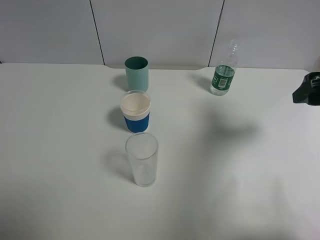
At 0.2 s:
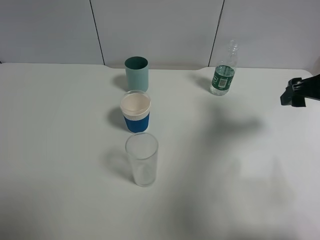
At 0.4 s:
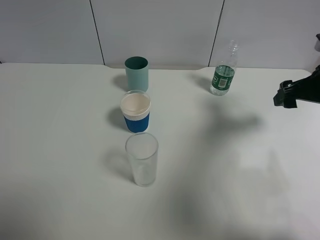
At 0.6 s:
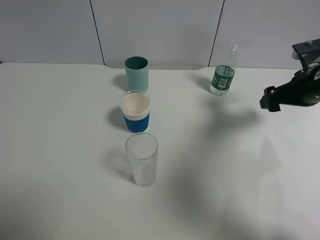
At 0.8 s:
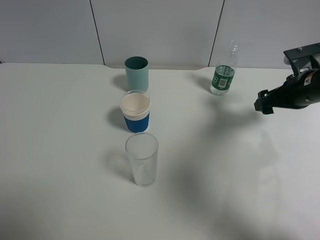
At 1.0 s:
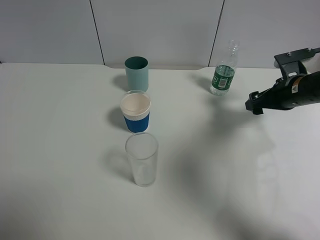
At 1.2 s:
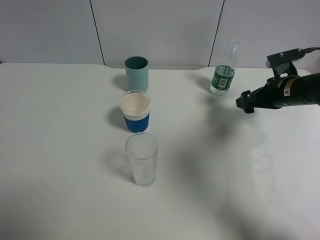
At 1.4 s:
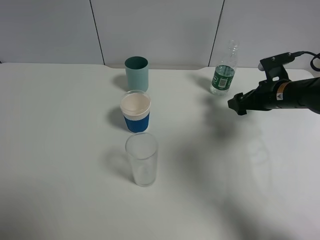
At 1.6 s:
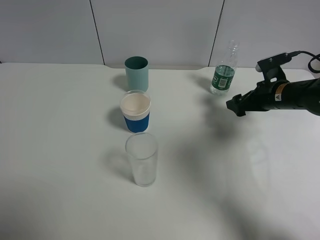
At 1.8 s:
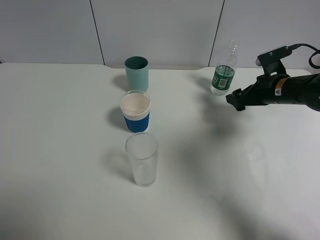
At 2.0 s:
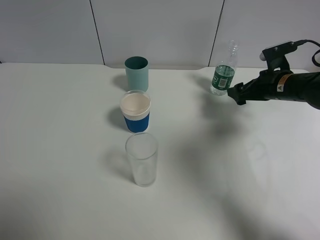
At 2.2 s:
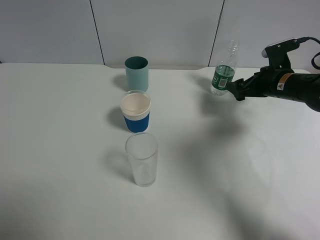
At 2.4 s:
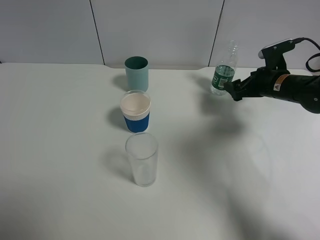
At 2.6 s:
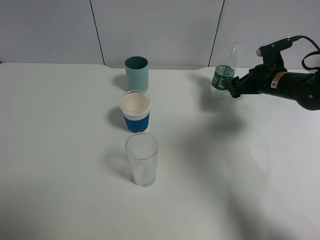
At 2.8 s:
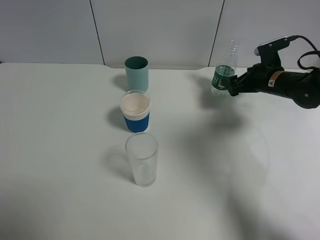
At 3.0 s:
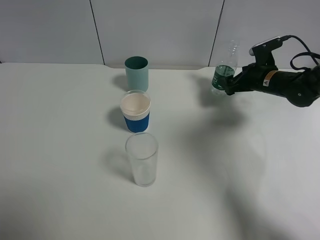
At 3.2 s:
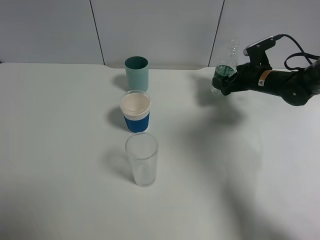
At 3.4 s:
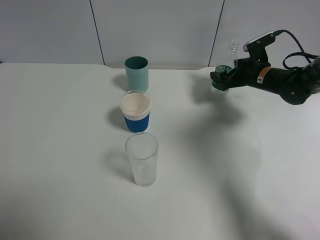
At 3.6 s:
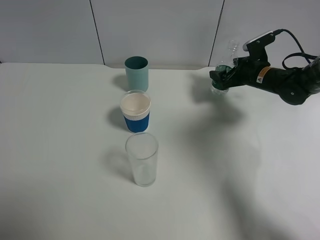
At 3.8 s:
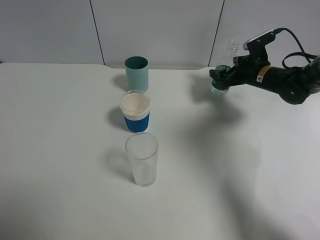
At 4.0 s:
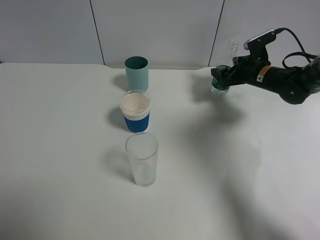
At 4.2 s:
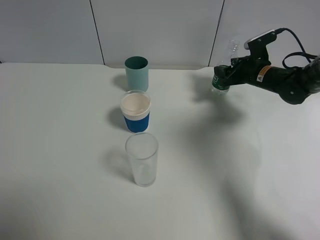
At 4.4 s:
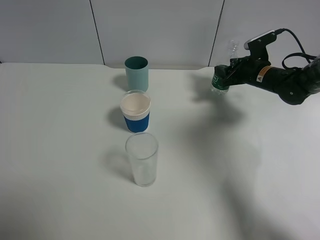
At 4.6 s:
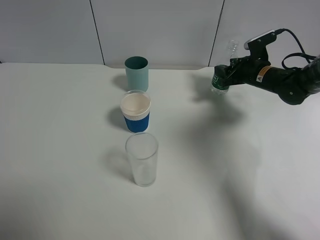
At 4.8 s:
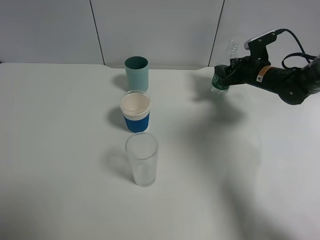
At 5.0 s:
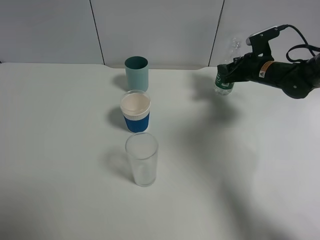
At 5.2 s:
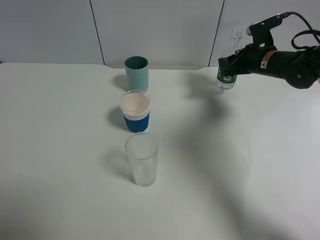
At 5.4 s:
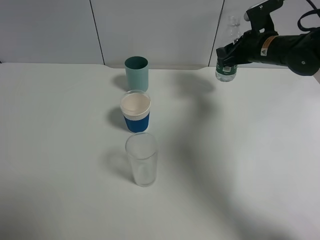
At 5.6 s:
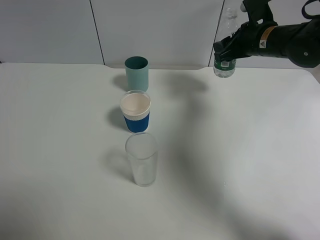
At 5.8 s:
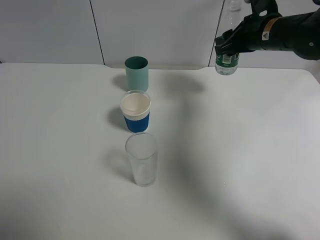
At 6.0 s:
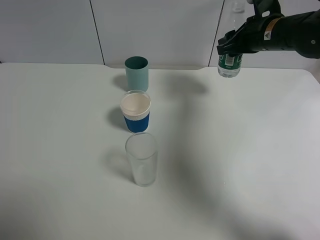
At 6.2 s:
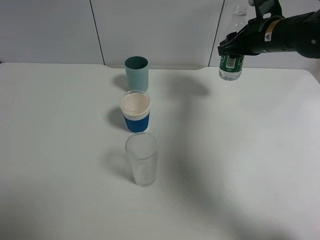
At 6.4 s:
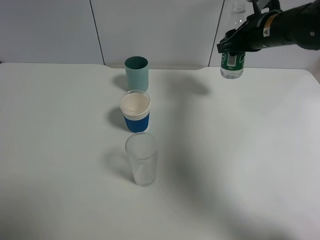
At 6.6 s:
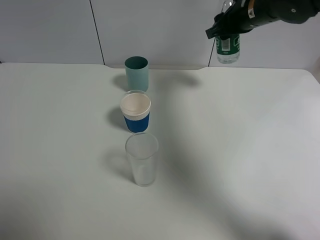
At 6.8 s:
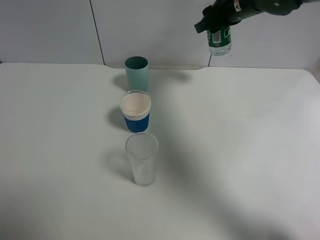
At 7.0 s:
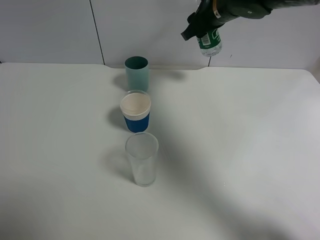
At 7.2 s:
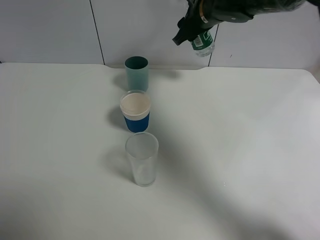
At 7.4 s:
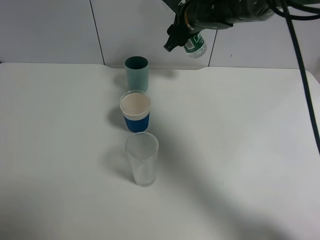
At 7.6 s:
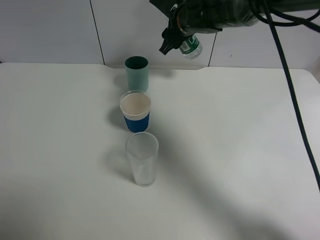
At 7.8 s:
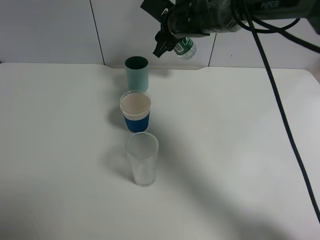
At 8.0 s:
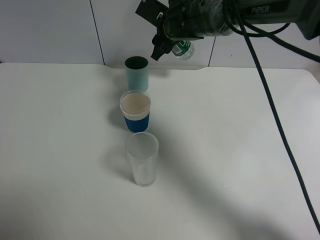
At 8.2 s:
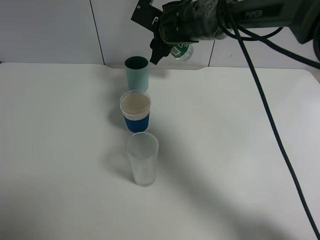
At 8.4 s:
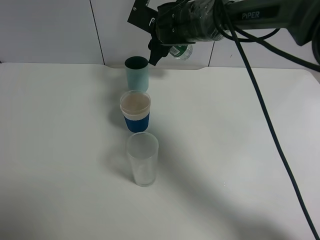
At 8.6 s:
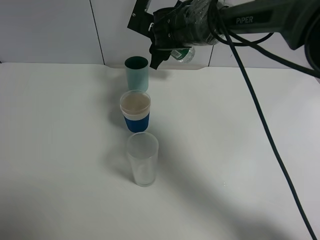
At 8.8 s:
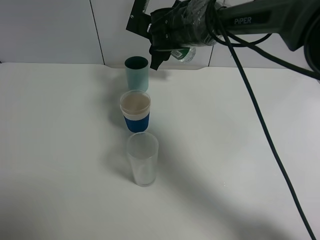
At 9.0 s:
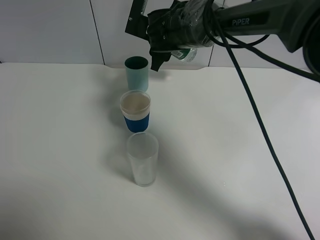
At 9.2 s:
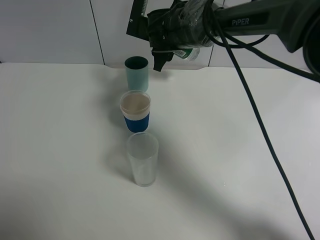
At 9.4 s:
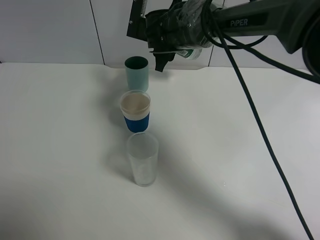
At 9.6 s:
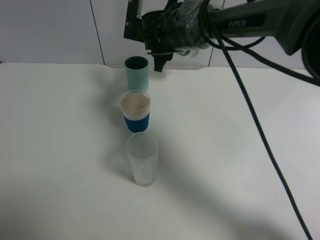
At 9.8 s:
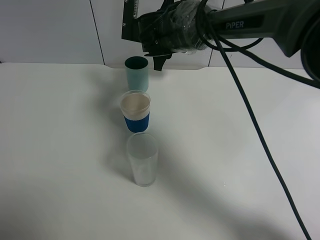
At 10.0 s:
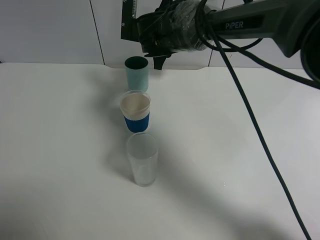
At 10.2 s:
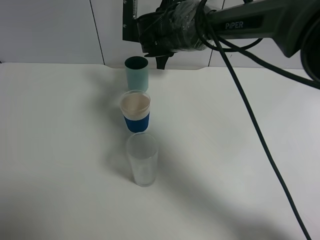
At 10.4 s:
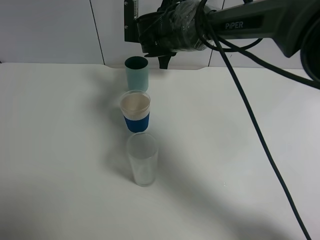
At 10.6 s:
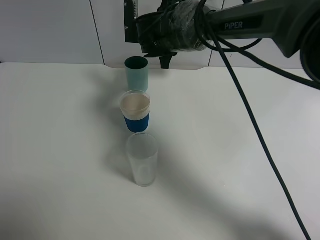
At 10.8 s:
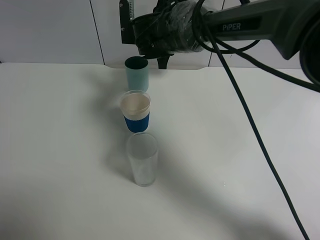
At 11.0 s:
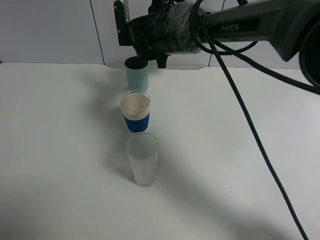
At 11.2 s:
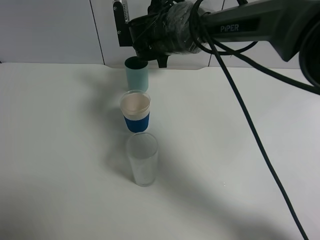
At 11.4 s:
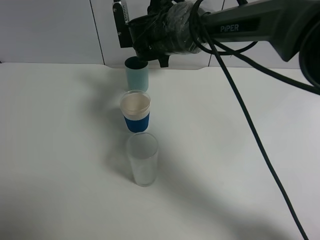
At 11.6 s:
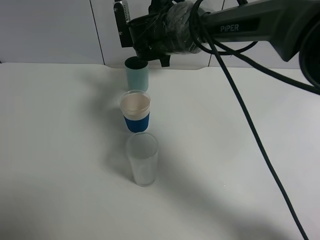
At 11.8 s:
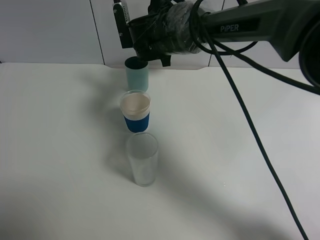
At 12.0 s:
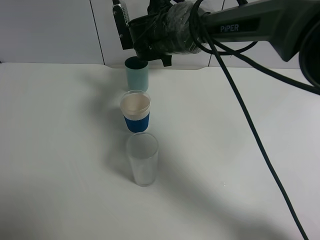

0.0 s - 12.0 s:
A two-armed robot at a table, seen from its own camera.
Task of the whole recording: use a gripper to hold the bottle of the drink and pour it into a random cup.
Step, 0.0 s - 4.4 s: Grasp the mineral water bottle with the right gripper.
0.0 s - 1.6 s: The right gripper travels downward and forward by approximately 20 cm.
1.6 s - 3.0 s: The right gripper goes some 5 cm forward.
3.0 s - 4.4 s: The right gripper closes up.
4.4 s - 6.0 s: The right gripper shifts approximately 10 cm upward.
6.0 s - 7.6 s: The right gripper travels to the left by about 15 cm.
7.6 s - 9.0 s: The right gripper changes place by some 5 cm.
9.0 s - 10.4 s: The grippers stay close to where they were, moving slightly.
10.4 s - 12.0 s: There are only small adjustments of the grippers.

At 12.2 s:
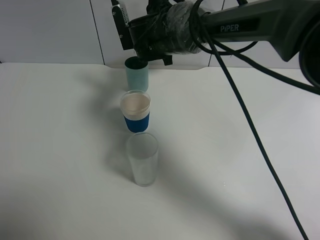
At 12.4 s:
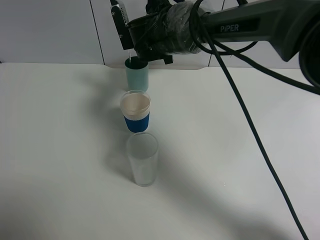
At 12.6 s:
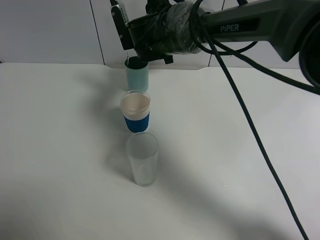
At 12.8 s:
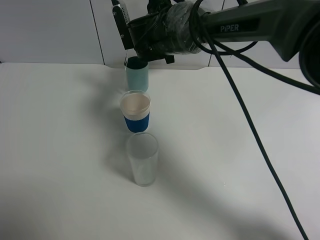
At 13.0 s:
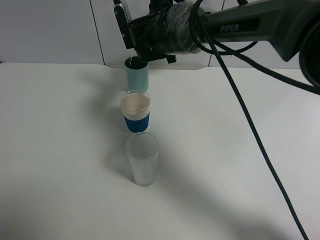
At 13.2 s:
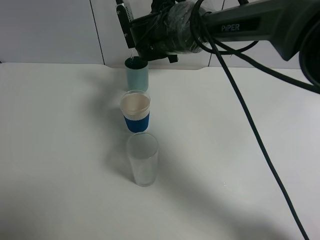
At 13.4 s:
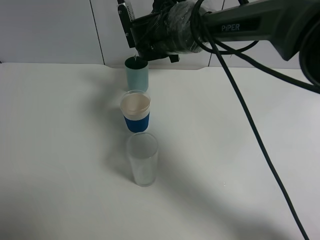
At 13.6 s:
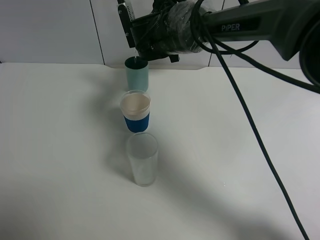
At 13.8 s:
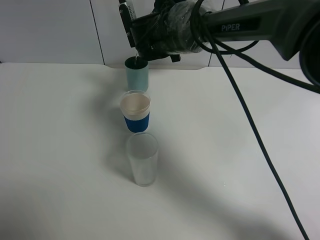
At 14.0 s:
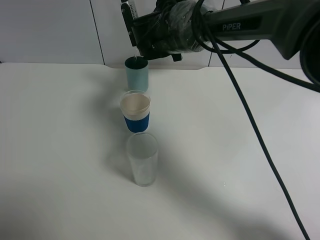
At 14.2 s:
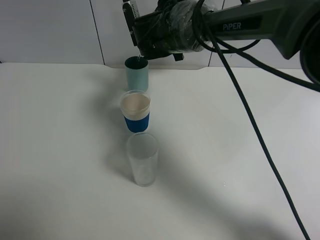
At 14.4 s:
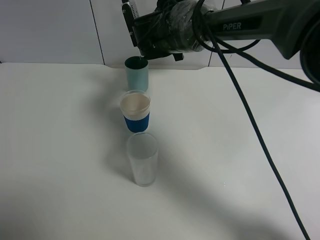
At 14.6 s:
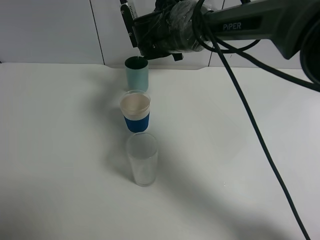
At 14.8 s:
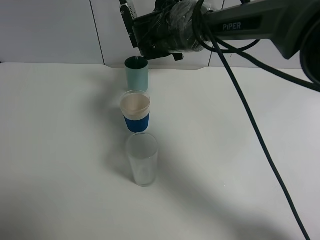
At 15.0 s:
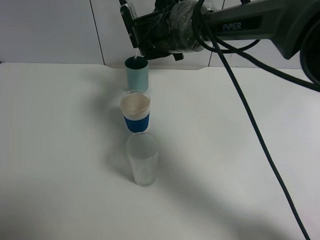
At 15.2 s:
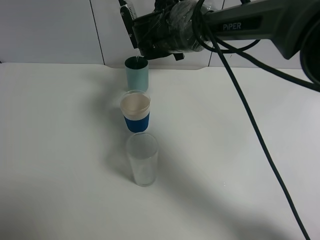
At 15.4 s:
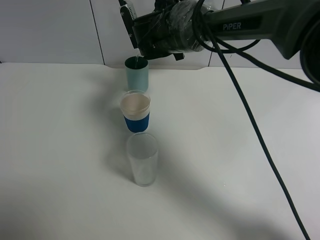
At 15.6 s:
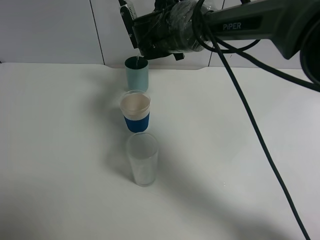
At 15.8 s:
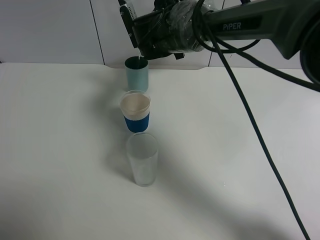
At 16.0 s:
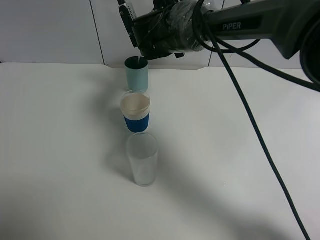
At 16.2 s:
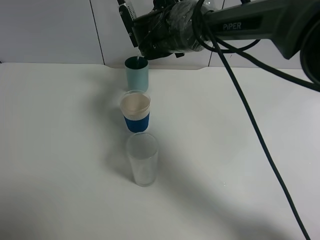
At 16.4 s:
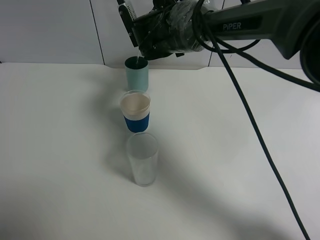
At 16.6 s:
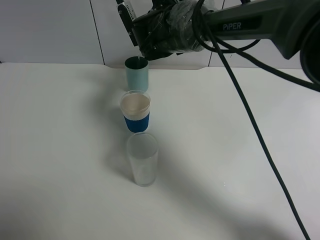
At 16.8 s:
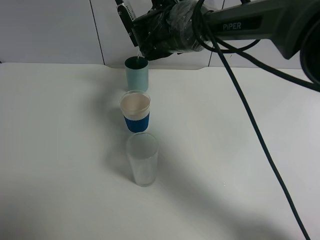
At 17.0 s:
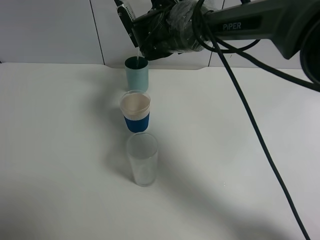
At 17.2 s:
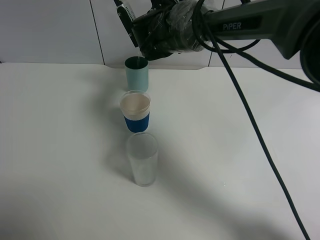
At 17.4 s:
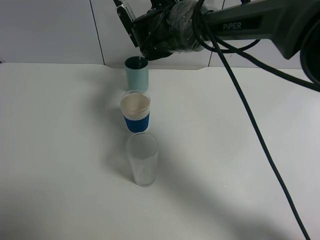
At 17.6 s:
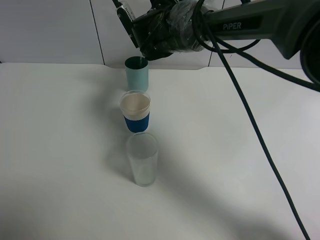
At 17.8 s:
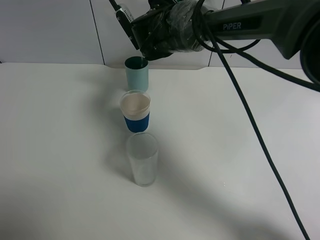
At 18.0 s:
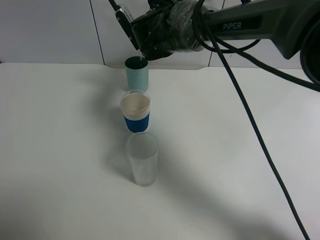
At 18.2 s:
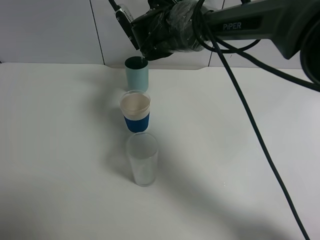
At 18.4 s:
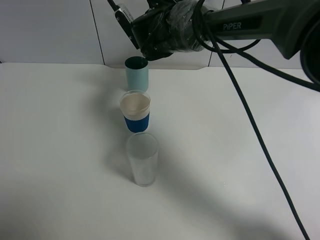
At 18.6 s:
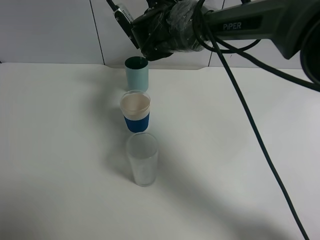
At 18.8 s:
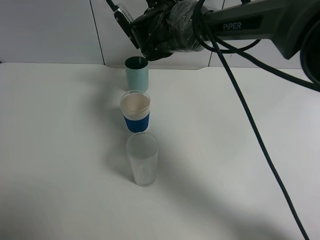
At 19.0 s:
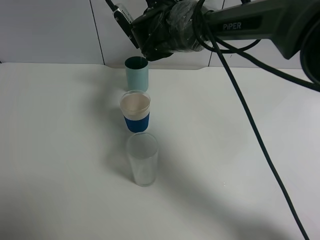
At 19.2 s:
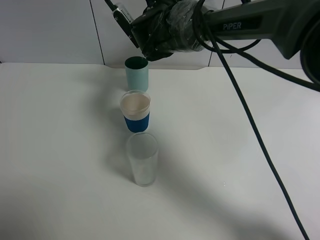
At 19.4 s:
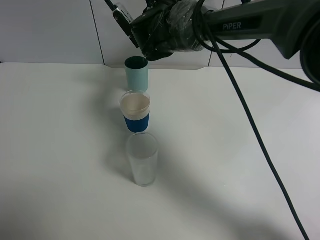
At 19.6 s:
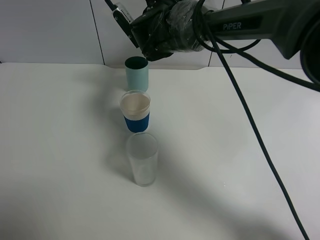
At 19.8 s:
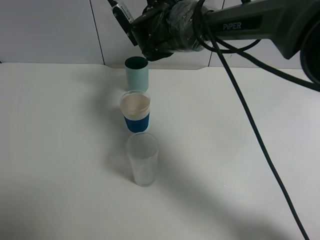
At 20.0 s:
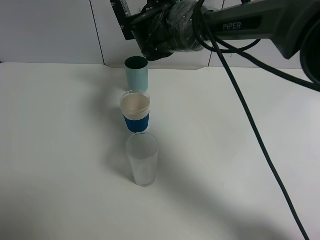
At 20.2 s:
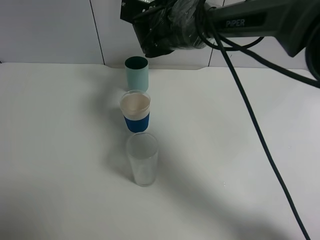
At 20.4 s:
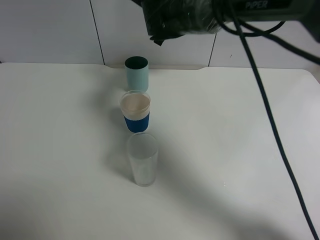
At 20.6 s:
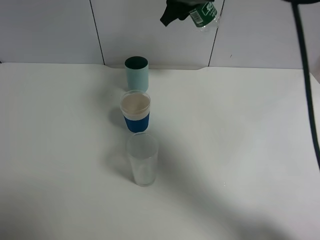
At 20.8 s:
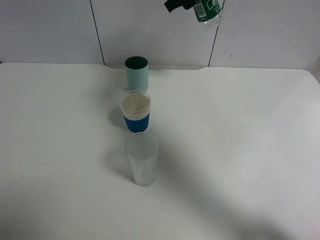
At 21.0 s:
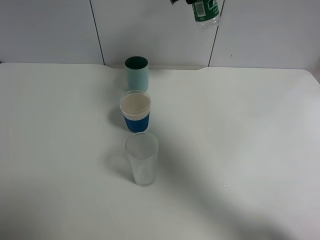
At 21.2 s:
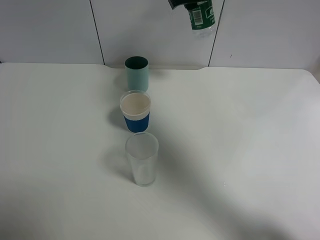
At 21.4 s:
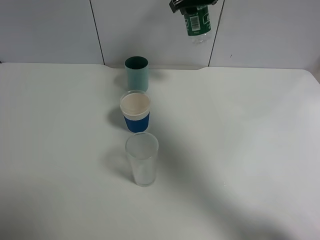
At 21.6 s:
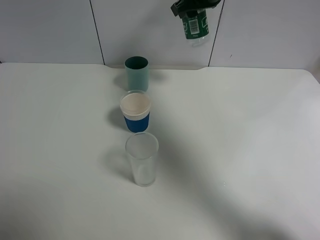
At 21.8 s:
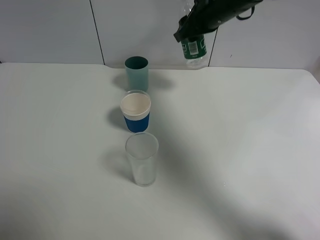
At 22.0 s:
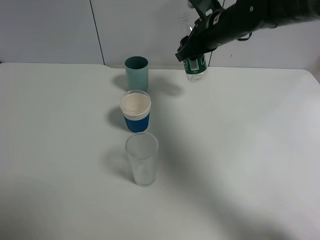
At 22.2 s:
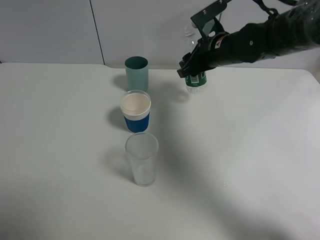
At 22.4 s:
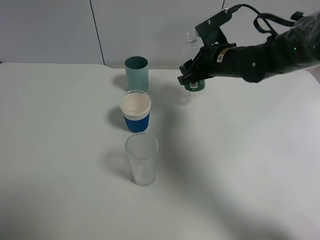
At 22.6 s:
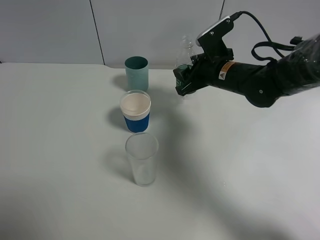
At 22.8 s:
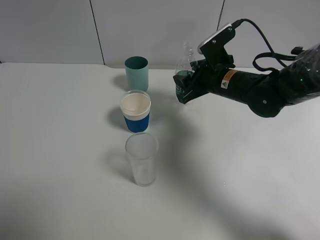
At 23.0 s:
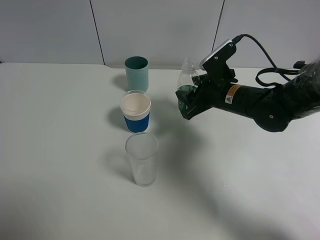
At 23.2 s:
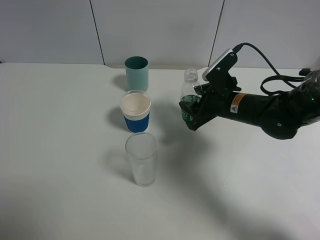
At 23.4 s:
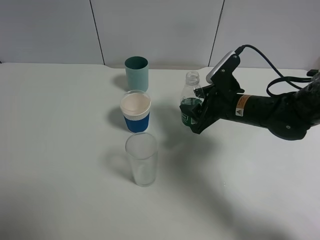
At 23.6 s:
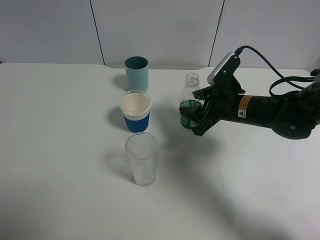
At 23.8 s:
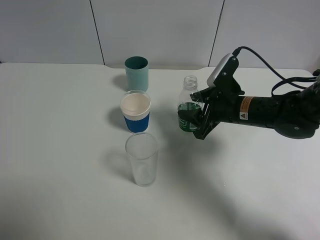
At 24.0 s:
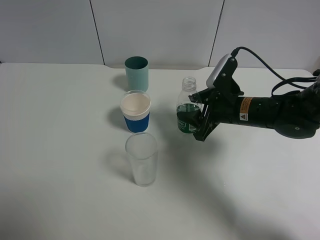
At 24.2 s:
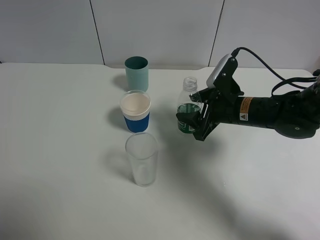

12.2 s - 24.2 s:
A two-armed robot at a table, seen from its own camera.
Task of the whole recording: use a gripper to hold the bottle of the drink and pour it into a random cup.
Step, 12.2 s - 19.4 s: Pour the mineral water into the cyan cup with the right gripper.
12.2 s - 13.8 s: The grippers stay close to where they were, moving slightly.
13.8 s - 15.2 s: Neither gripper changes place.
16.6 s - 19.8 s: The grippers stay close to where they were, moving slightly.
19.8 s - 21.2 s: The right gripper travels upward and to the right by some 15 cm.
21.2 s - 22.6 s: The right gripper is displaced downward and backward by some 15 cm.
22.6 s - 24.2 s: The right gripper is displaced backward by approximately 5 cm, and opens up.
